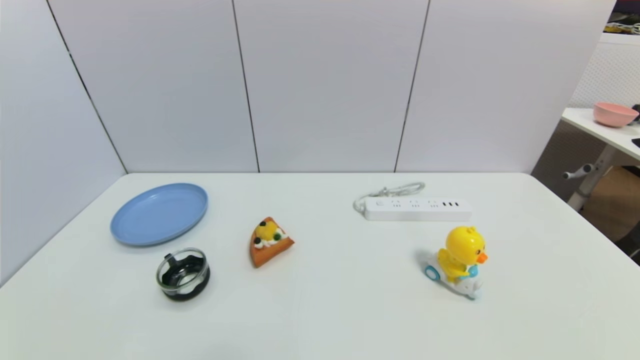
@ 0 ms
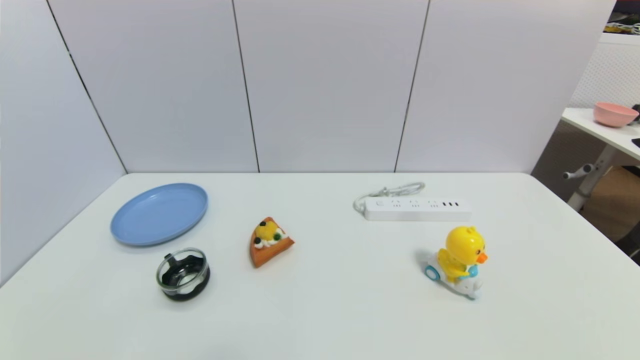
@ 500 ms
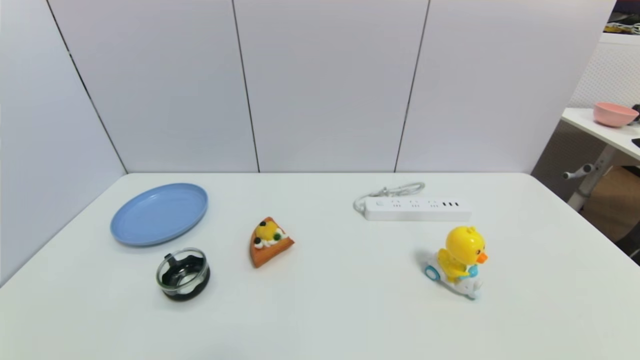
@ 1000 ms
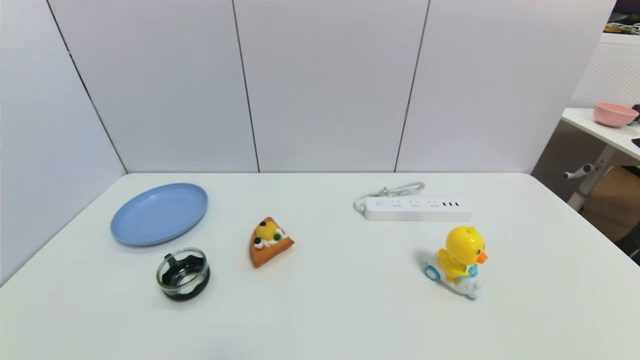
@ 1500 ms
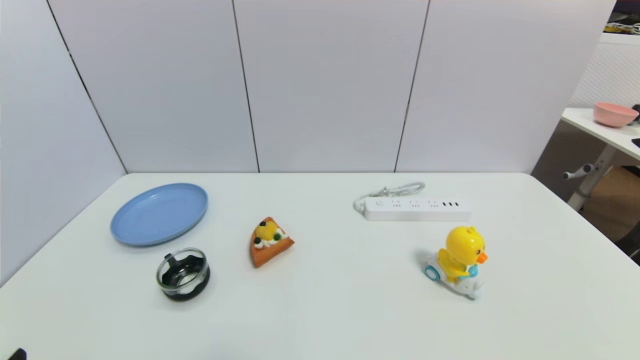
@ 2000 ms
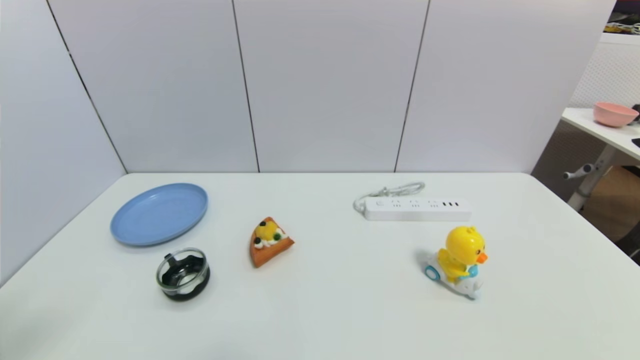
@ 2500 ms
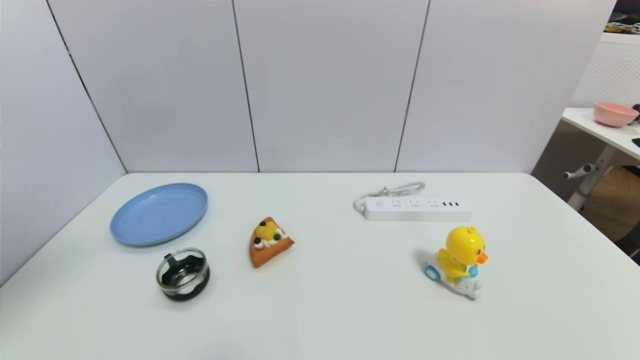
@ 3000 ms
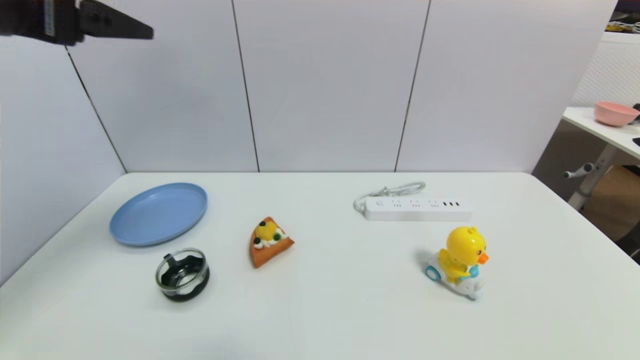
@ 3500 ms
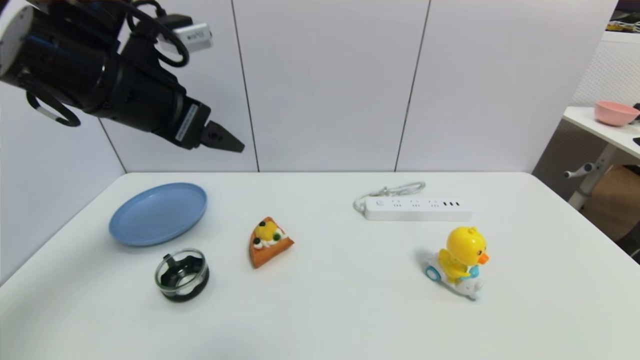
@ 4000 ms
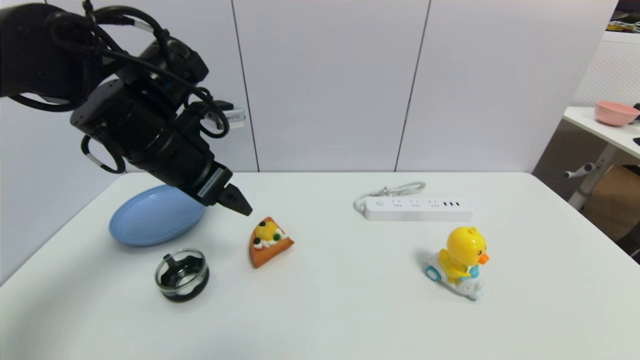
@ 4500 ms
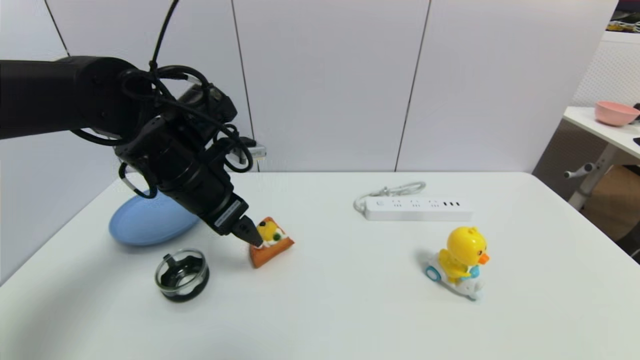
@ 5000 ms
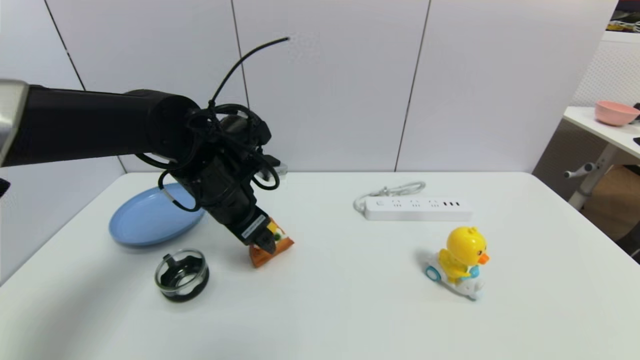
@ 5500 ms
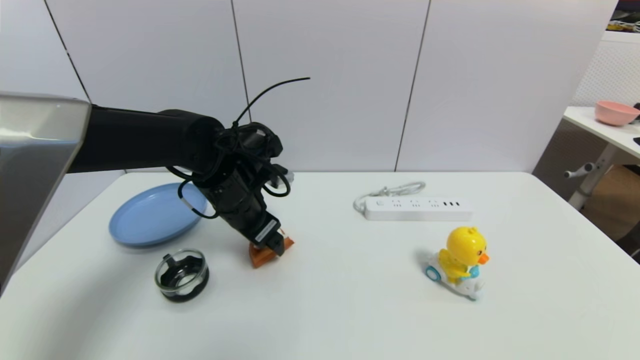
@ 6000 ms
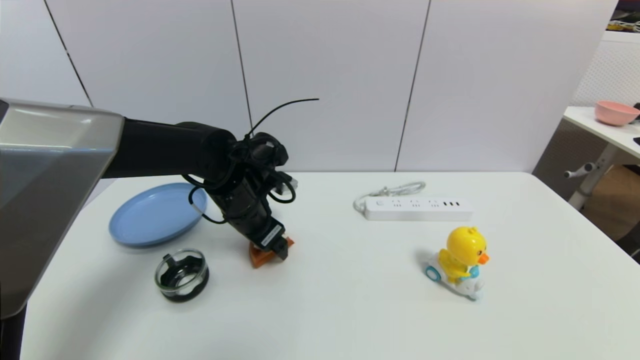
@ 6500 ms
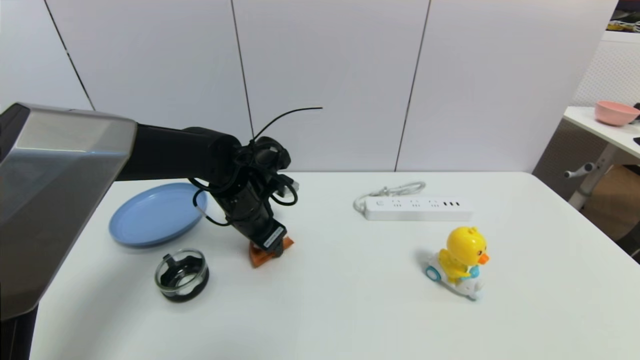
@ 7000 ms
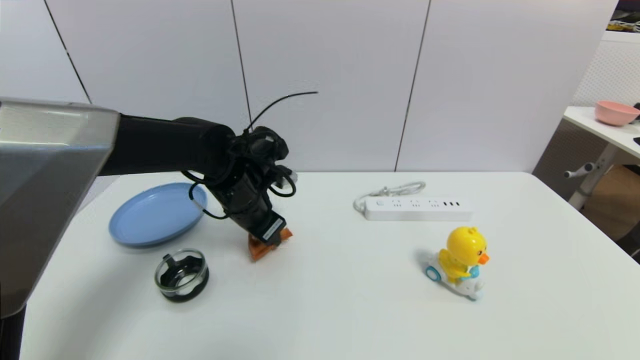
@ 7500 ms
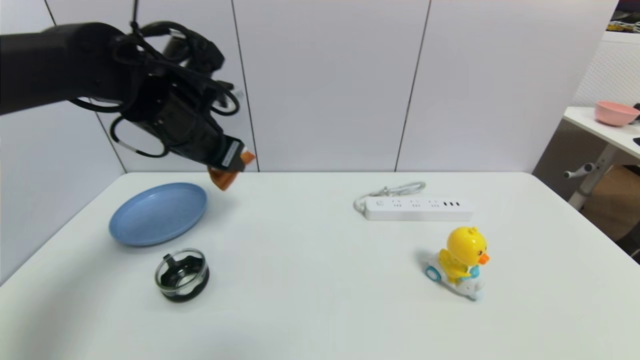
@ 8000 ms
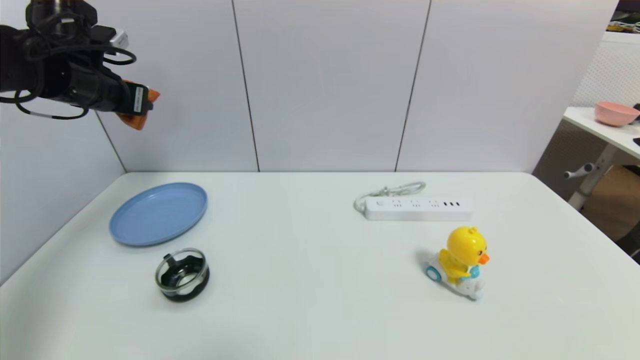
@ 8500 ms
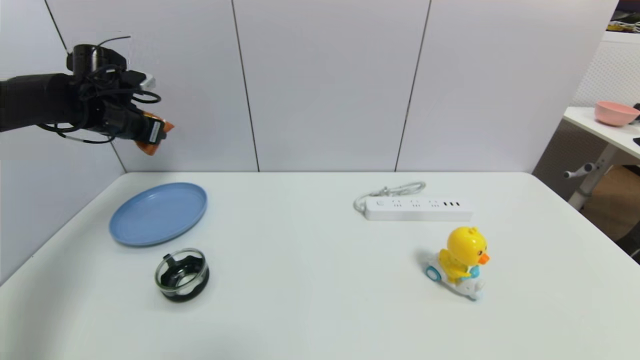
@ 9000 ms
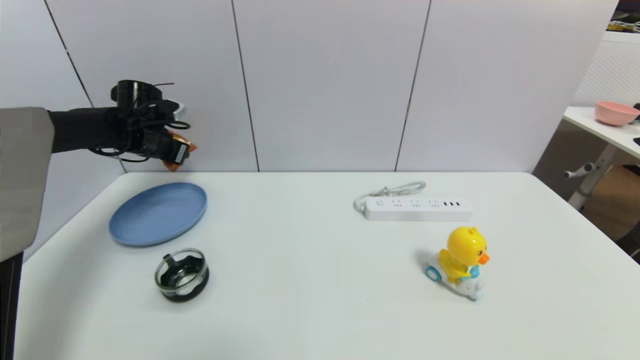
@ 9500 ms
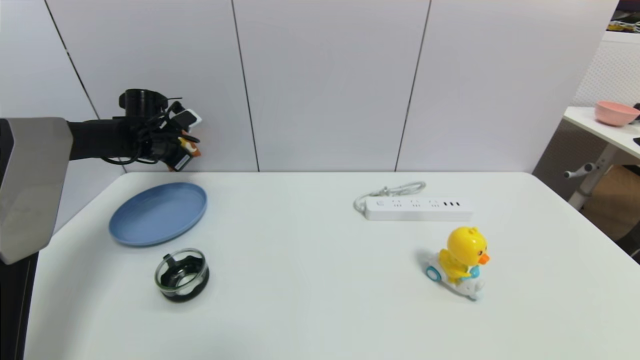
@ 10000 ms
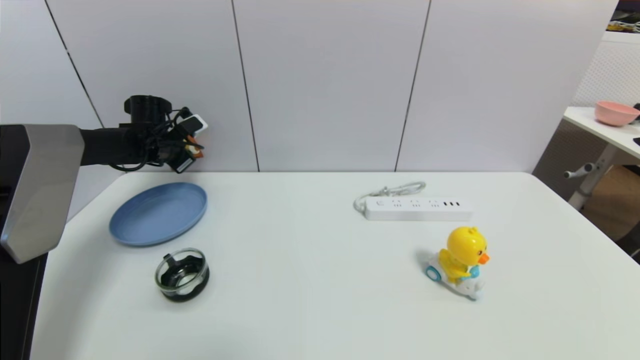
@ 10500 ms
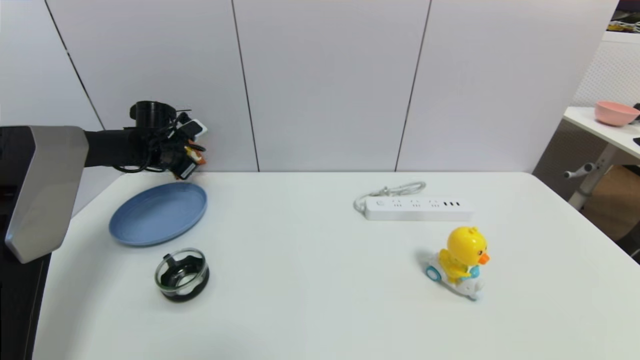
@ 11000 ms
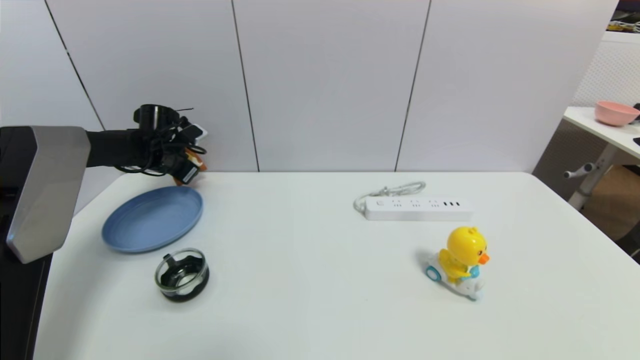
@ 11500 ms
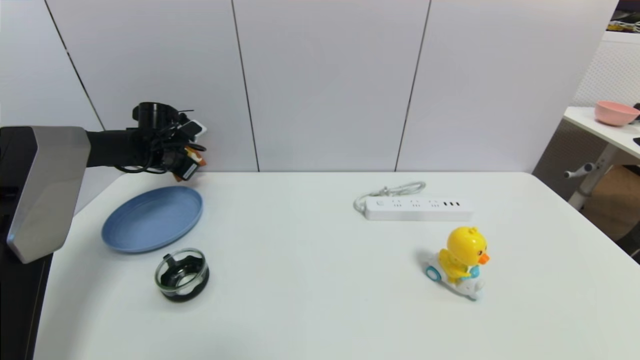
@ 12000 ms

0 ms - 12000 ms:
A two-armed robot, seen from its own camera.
Step, 3500 ms - 7000 ms: Grasp the pizza with left gripper.
2000 ms - 4000 ms: The left gripper shifts about 35 cm forward, upward and to the right.
4000 ms - 6000 ms: The left gripper is displaced downward, to the right and forward by about 20 cm.
6000 ms - 8000 ms: The left gripper moves upward and to the left, approximately 15 cm, and closes its fingers.
8000 ms - 10000 ms: The left gripper heads forward, to the left and downward, covering some 25 cm.
10000 ms - 12000 ms: The grippers stay close to where they were, moving slightly.

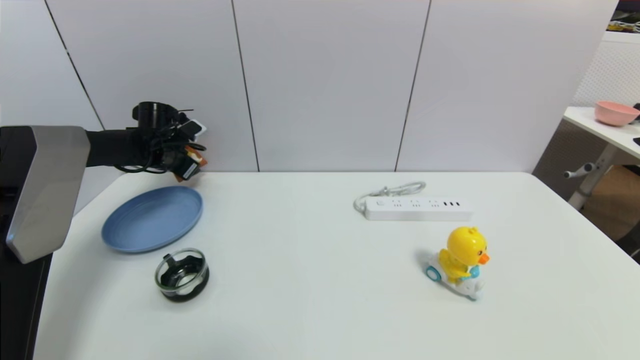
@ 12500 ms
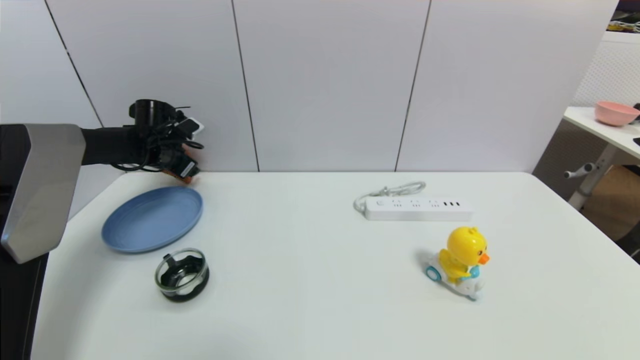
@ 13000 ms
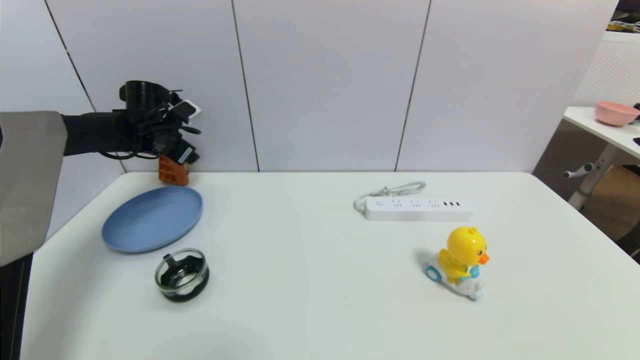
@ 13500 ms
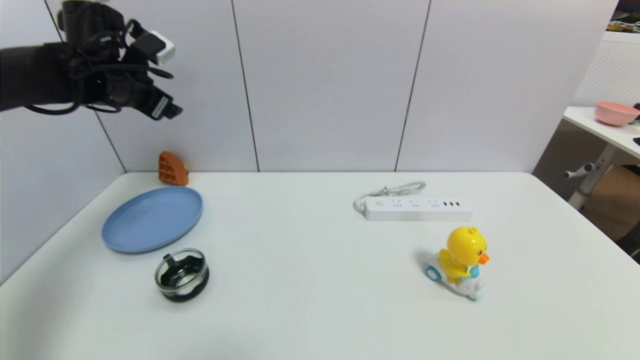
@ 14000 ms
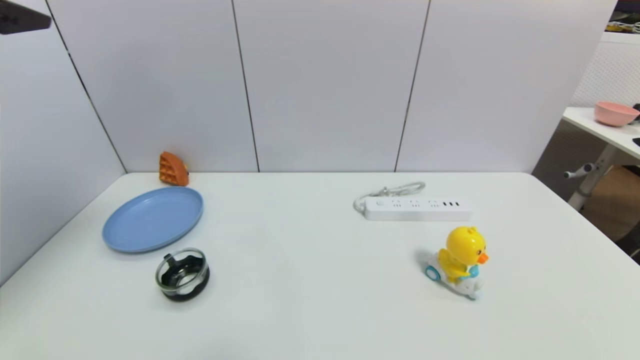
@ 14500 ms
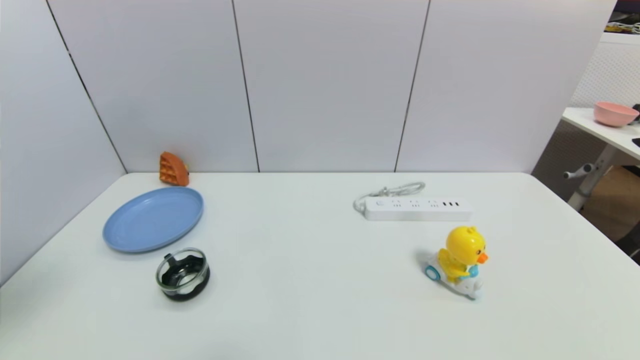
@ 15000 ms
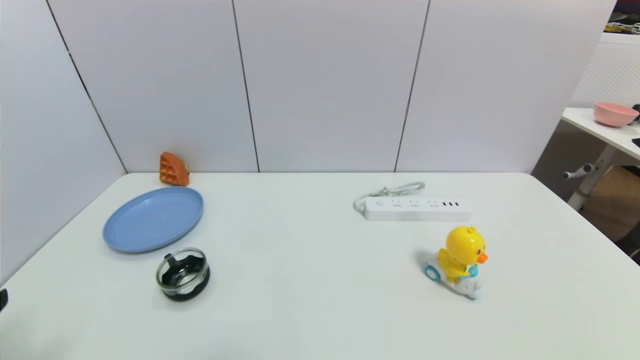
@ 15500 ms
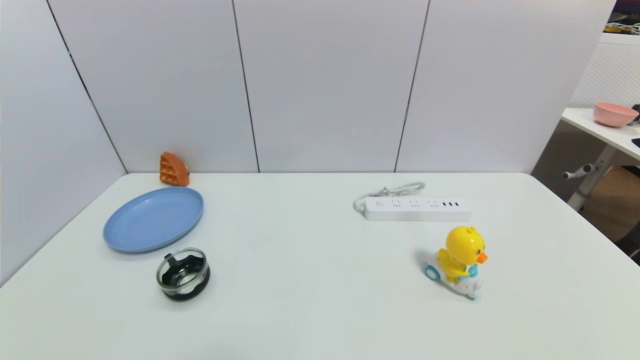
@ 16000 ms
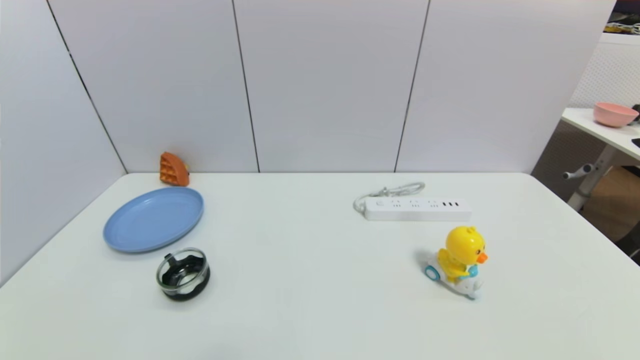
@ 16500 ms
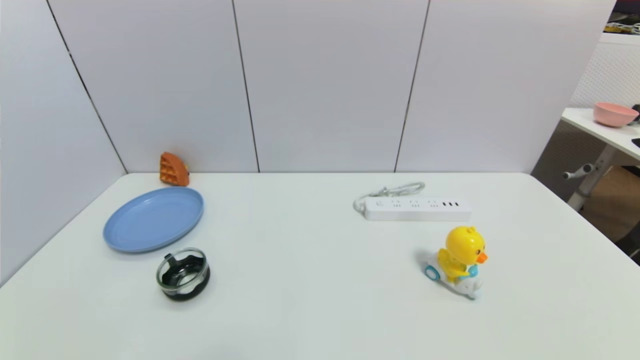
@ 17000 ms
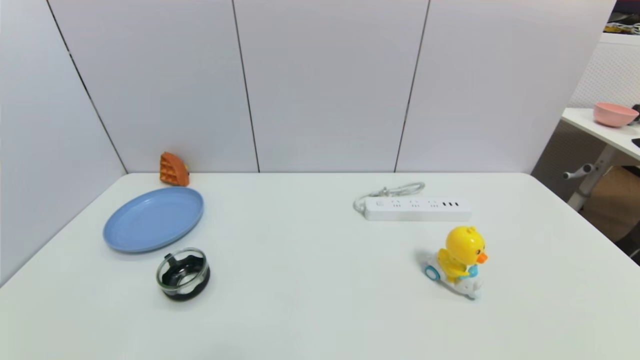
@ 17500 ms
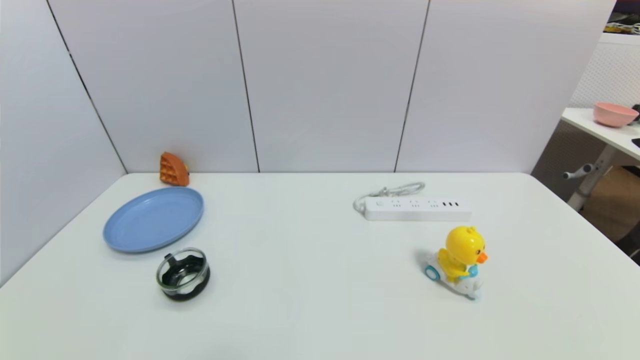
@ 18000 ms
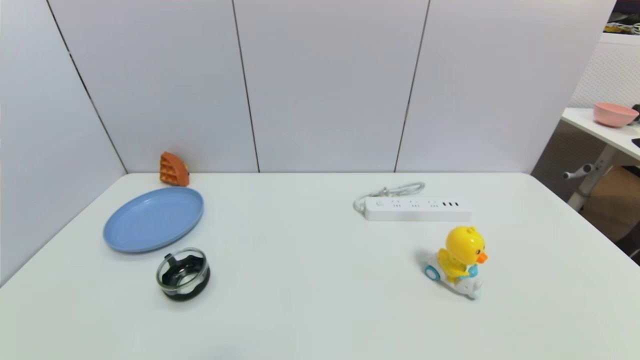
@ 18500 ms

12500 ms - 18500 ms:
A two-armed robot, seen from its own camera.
12500 ms - 14500 ms: The left gripper travels backward and upward by approximately 40 cm, and opens its fingers.
14500 ms - 16500 ms: The left gripper heads downward and backward, covering roughly 40 cm.
16500 ms - 18500 ms: Both grippers stay put.

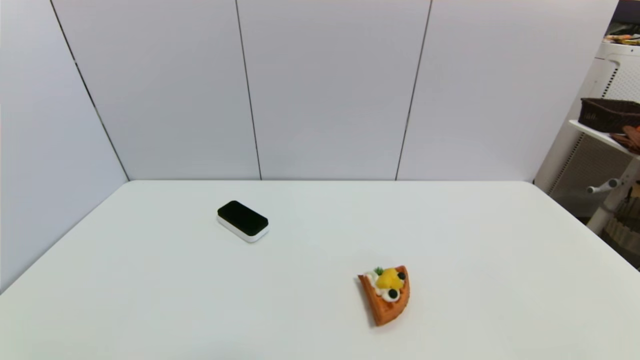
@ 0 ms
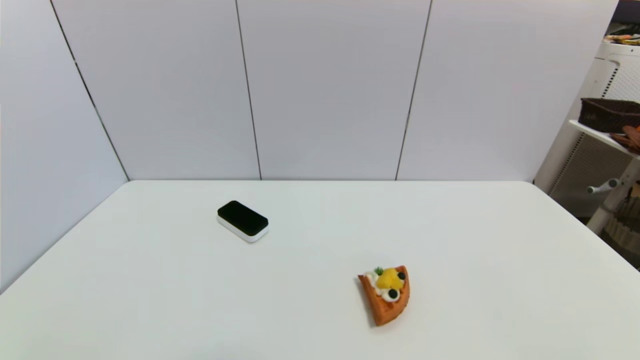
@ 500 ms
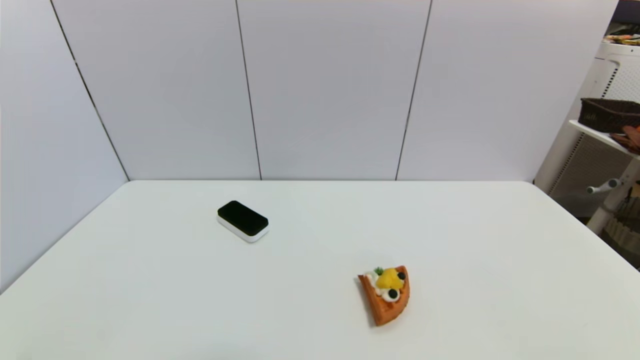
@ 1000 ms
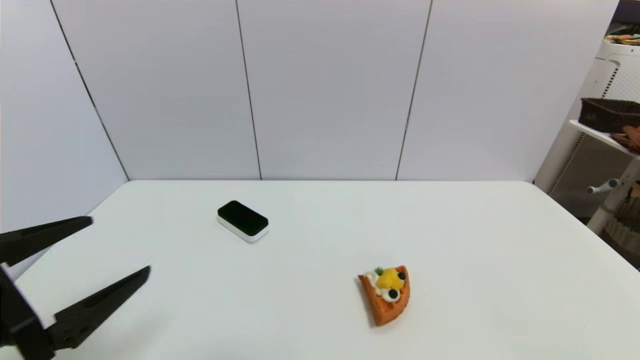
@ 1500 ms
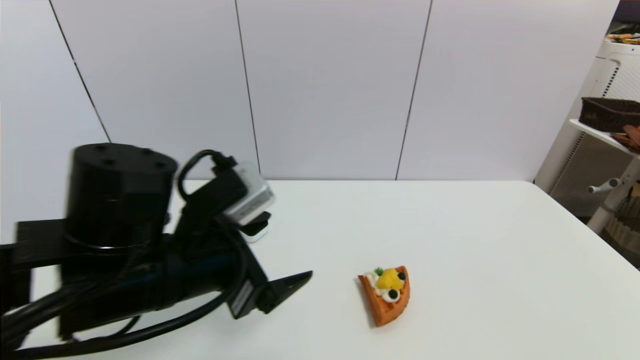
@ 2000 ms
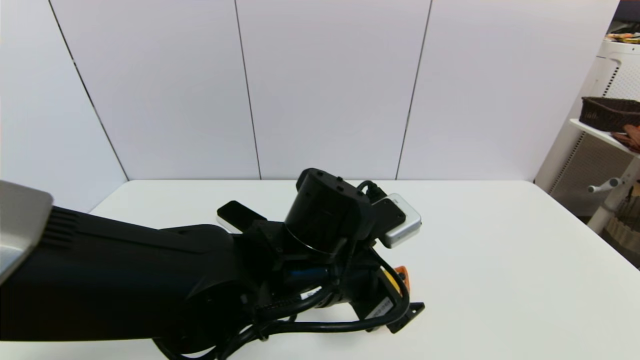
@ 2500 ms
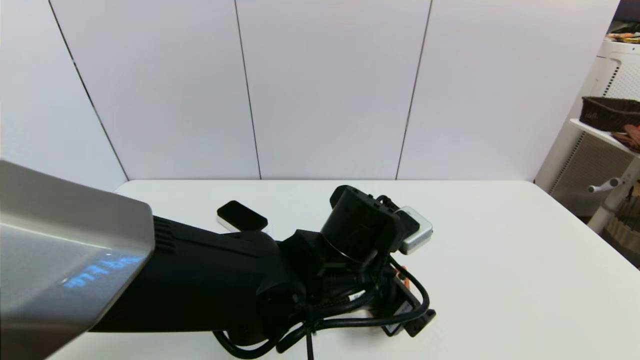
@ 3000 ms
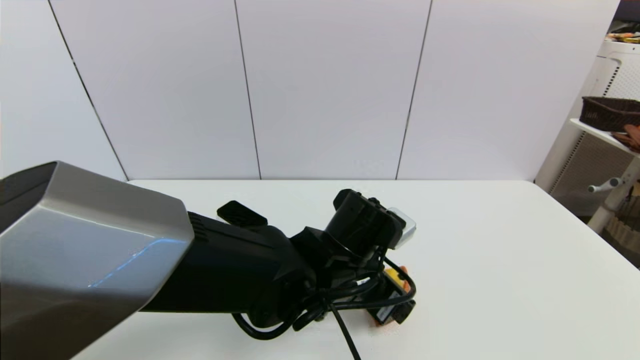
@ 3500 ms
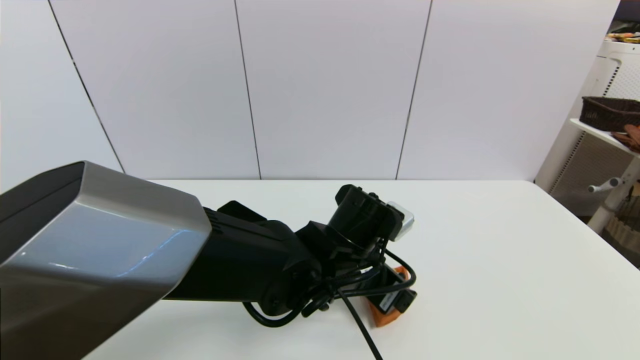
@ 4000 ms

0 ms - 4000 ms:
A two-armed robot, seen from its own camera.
0 ms - 2000 ms: The left gripper is displaced forward, to the right and upward by roughly 30 cm.
2000 ms - 4000 ms: The left gripper moves to the right, downward and forward, about 20 cm.
